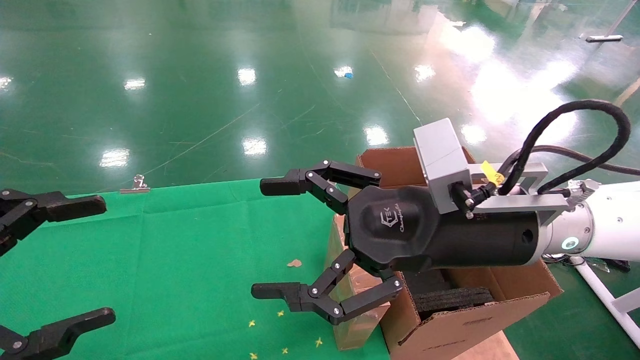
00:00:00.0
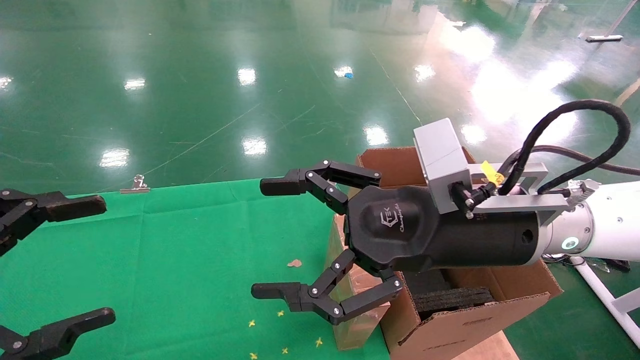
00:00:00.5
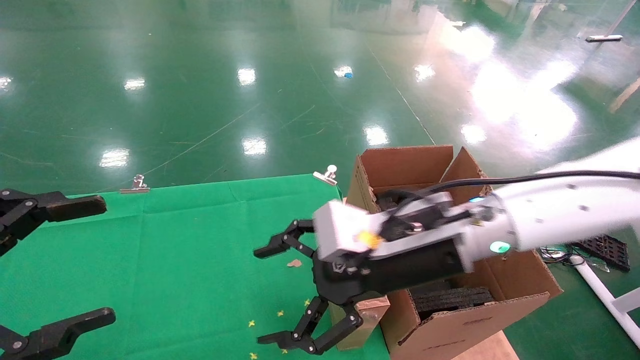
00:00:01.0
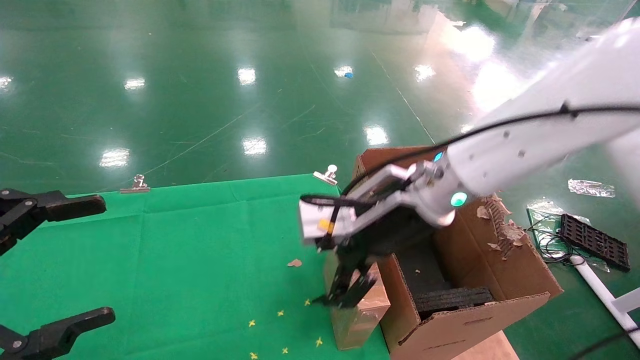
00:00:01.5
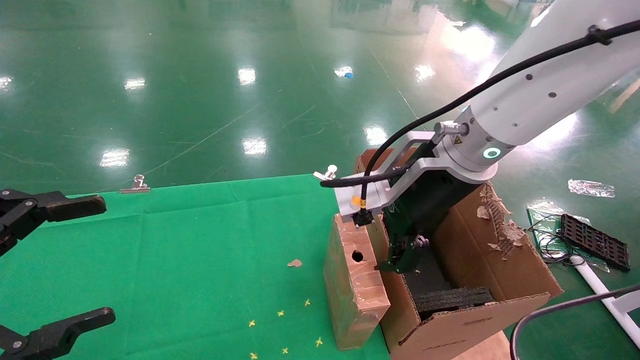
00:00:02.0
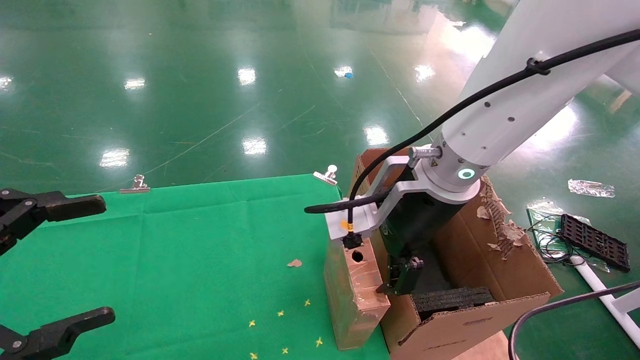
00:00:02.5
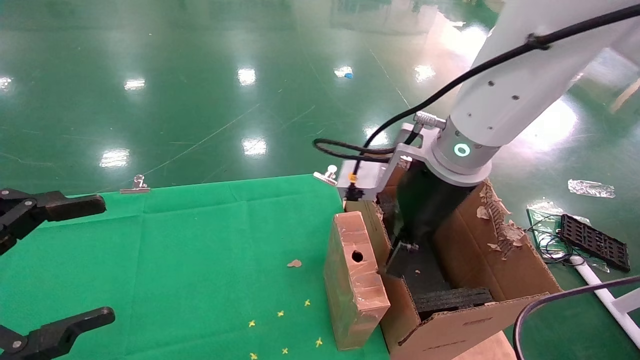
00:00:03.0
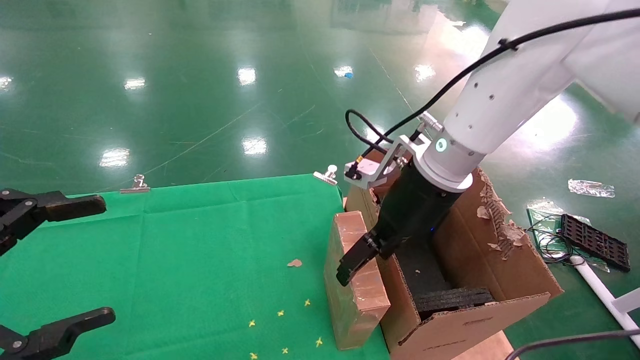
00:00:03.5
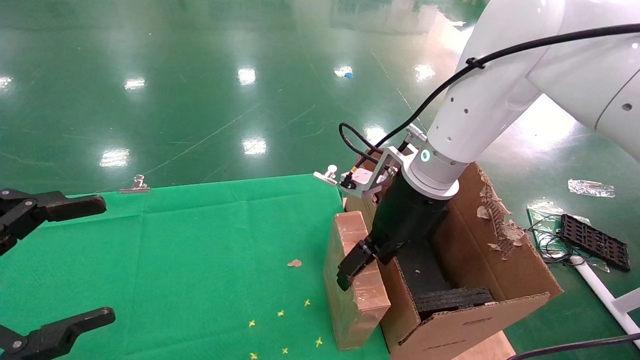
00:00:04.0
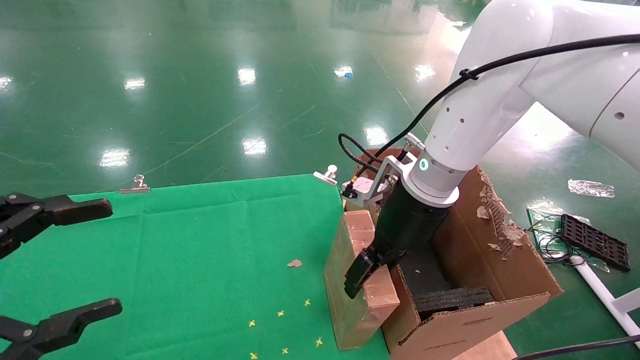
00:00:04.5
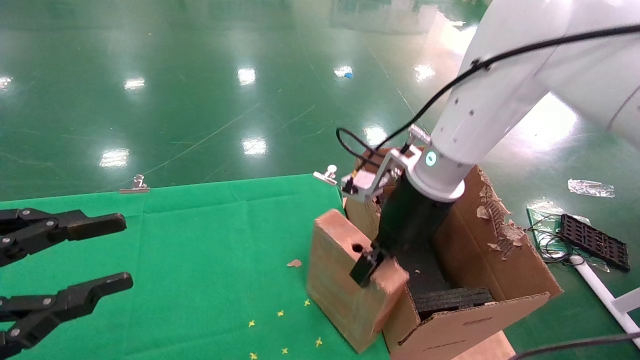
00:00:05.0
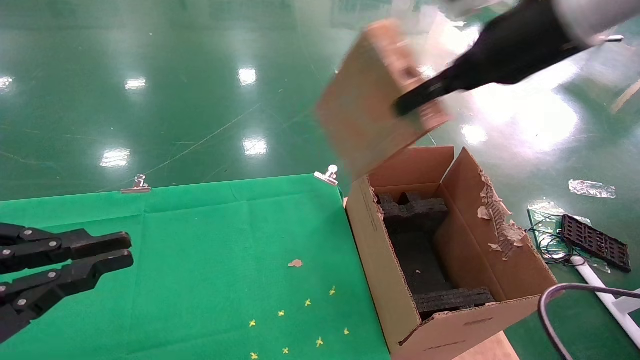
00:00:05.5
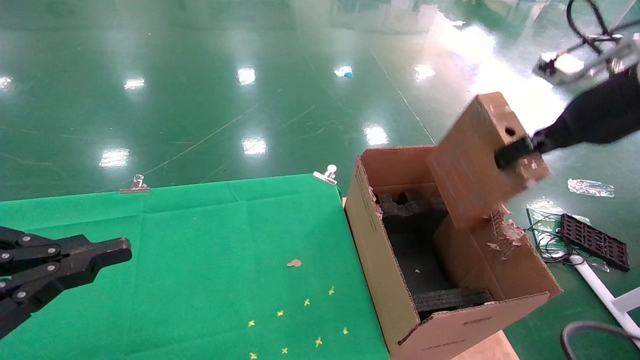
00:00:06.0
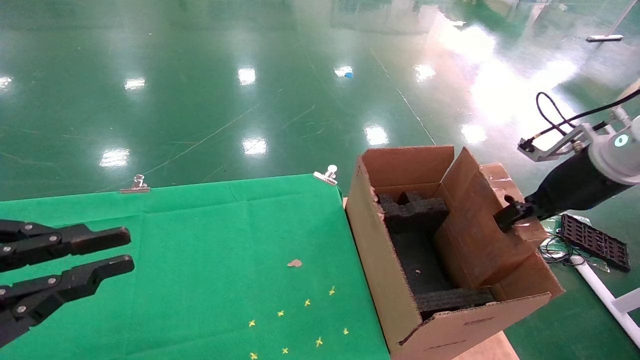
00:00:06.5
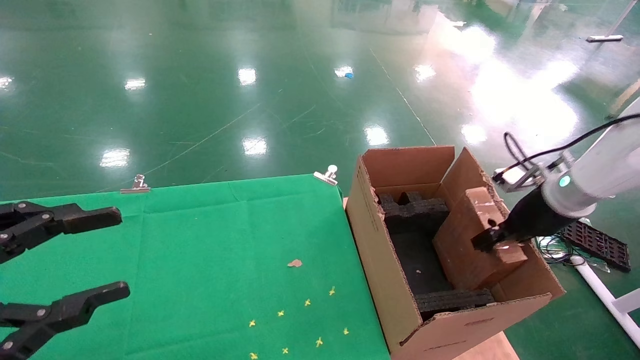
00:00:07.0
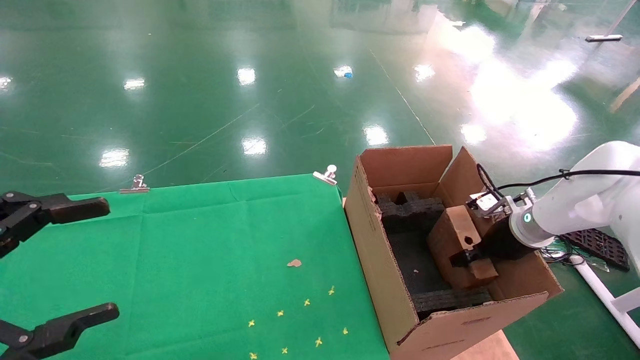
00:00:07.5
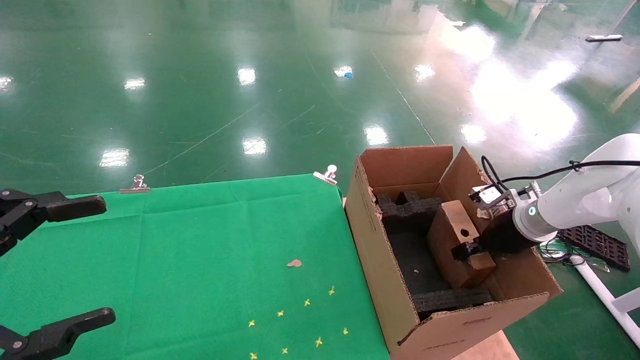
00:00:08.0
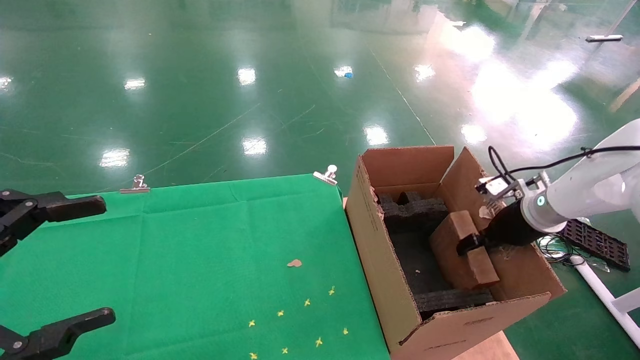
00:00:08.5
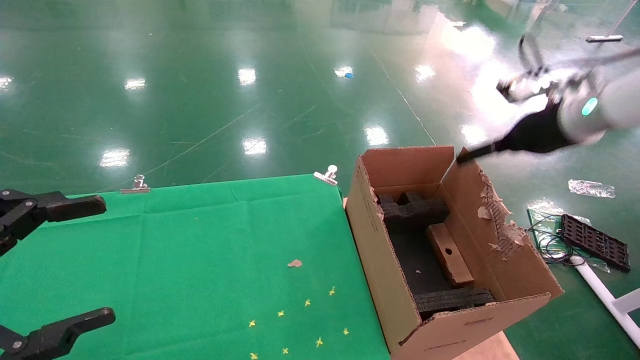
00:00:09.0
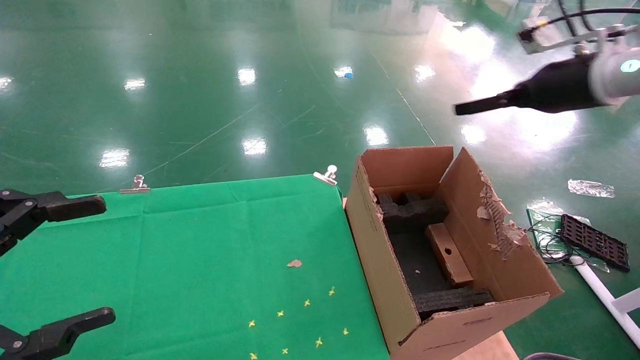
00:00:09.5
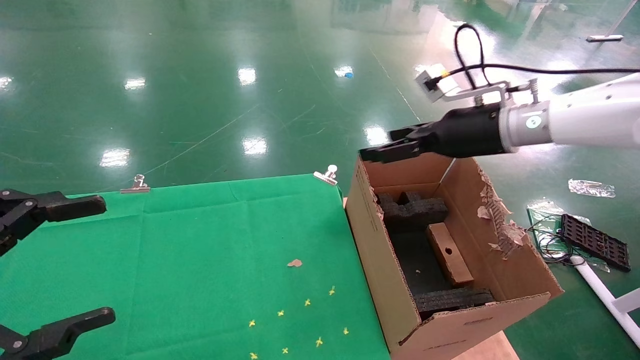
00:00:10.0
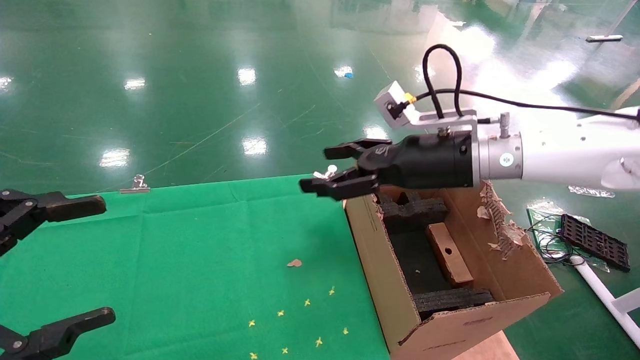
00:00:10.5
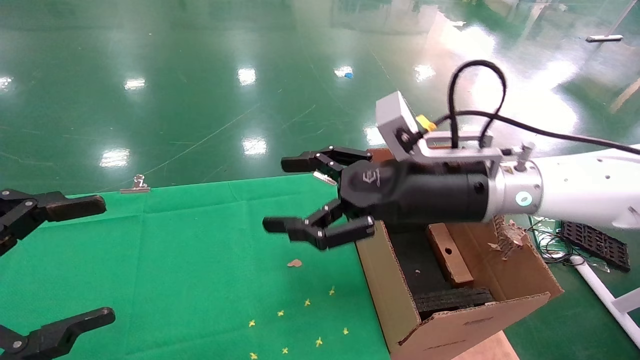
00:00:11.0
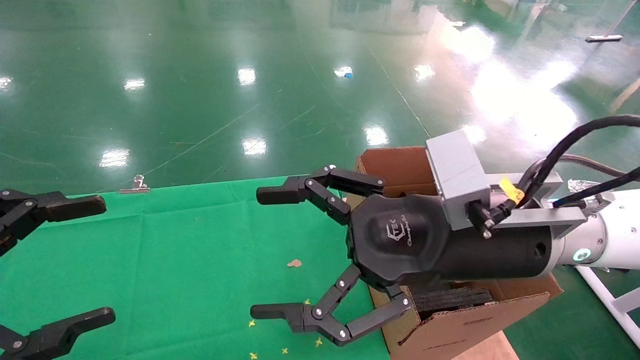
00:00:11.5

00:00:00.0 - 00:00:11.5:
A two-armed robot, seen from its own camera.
Task of the whole recording: using a robotic arm to pick up a cardboard box and palace it the carton.
Step, 00:00:01.0 - 00:00:05.0: Pick up the mouse and the power cord paper box.
Step, 00:00:05.5 - 00:00:09.5: Place the mouse and the power cord paper box into the container.
00:00:00.0 - 00:00:02.0: The right gripper goes roughly 5 cm forward.
00:00:02.0 - 00:00:04.0: The right gripper travels forward by approximately 5 cm.
00:00:04.0 - 00:00:06.0: The left gripper closes its fingers. The right gripper goes approximately 25 cm to the right and upward, and closes up.
00:00:06.0 - 00:00:07.5: The left gripper opens up; the right gripper travels downward and forward by approximately 25 cm.
00:00:07.5 - 00:00:09.5: The right gripper is displaced upward by about 20 cm, and opens.
00:00:09.5 - 00:00:11.5: The right gripper moves to the left, backward and downward, some 30 cm.

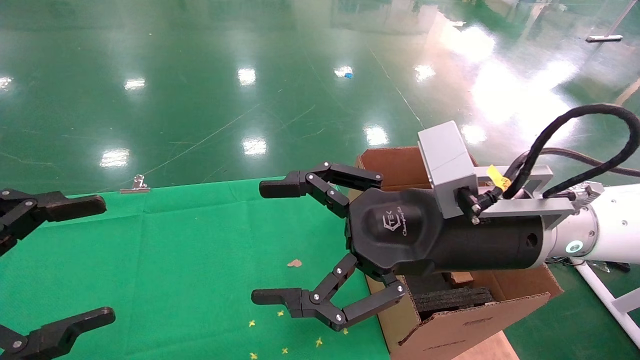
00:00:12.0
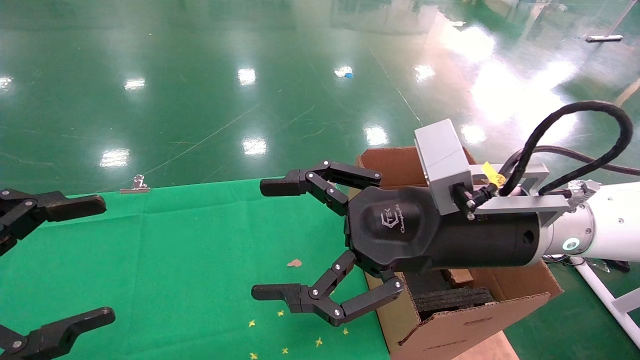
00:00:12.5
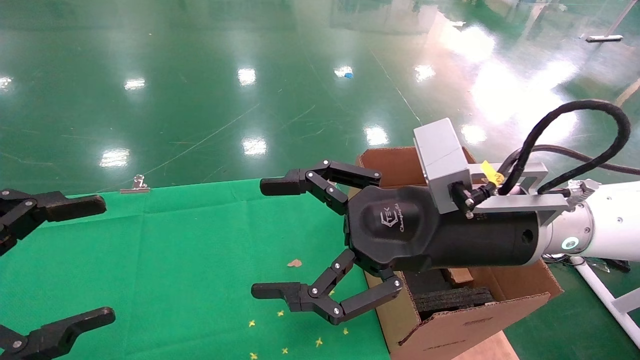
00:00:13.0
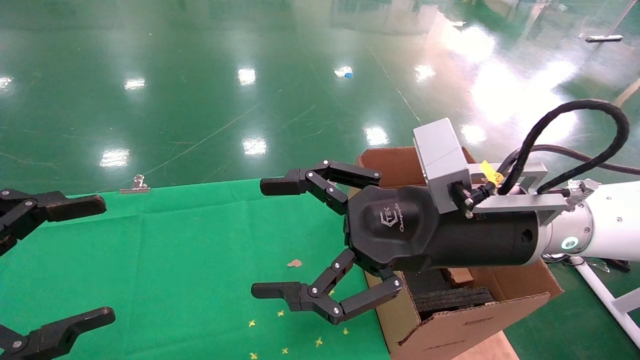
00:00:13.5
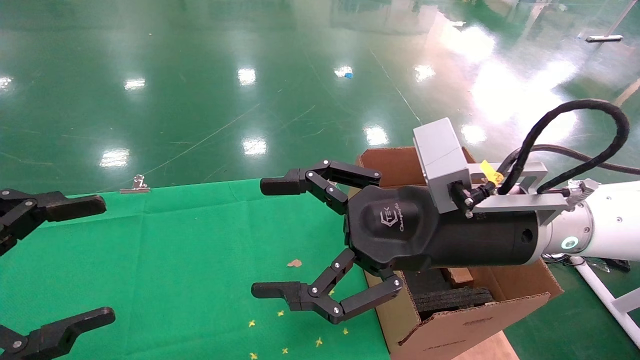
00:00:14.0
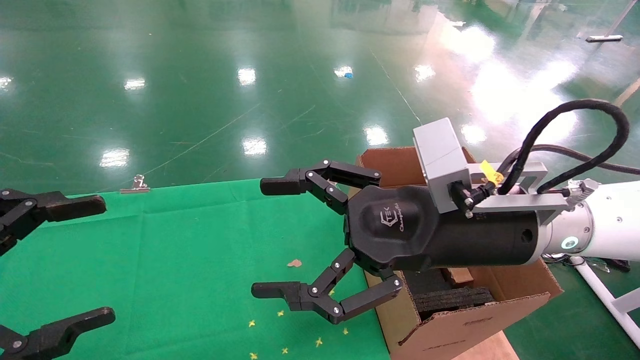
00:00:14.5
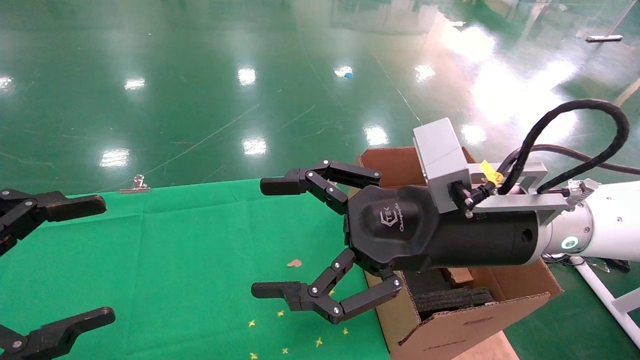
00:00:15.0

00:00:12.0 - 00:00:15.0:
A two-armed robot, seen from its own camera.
Task of the whole recording: using a robotic arm to pick up a cardboard box and palace it the carton.
00:00:12.0 - 00:00:15.0: Neither gripper changes place.
